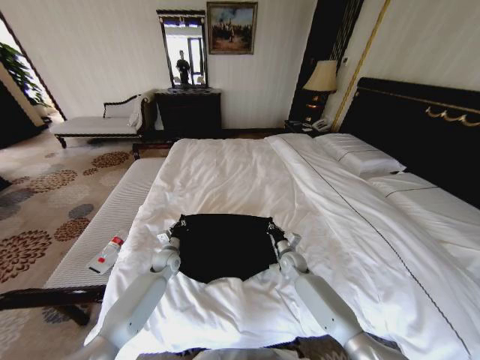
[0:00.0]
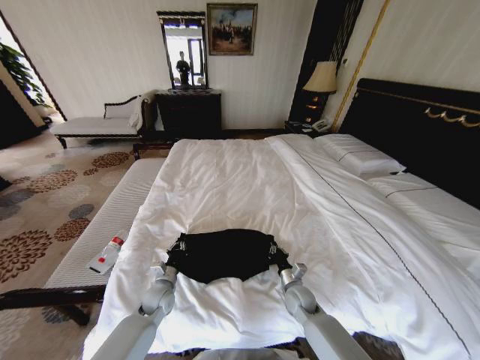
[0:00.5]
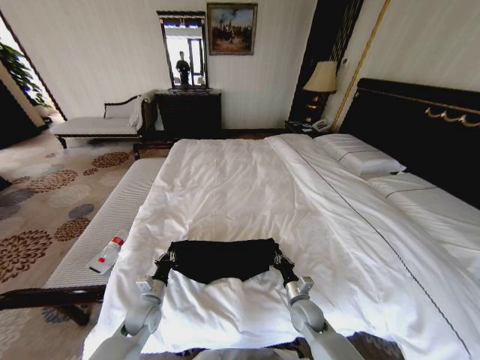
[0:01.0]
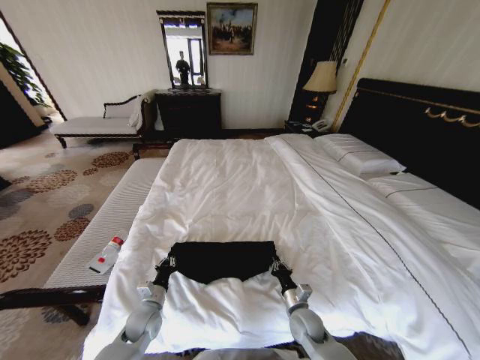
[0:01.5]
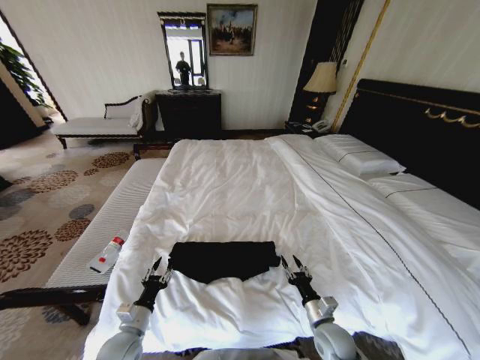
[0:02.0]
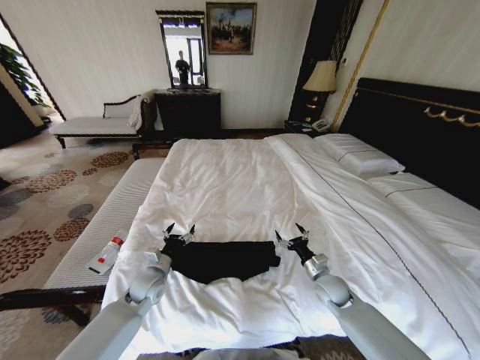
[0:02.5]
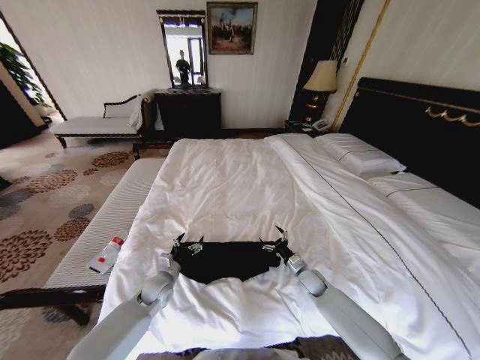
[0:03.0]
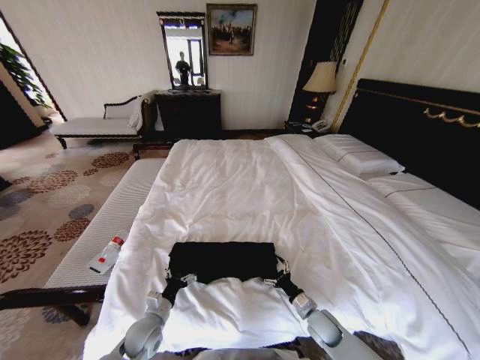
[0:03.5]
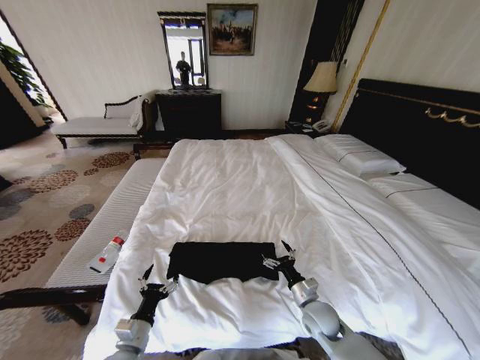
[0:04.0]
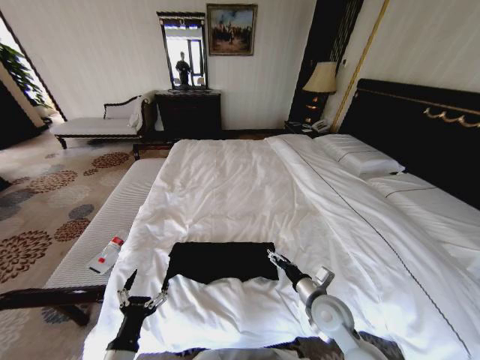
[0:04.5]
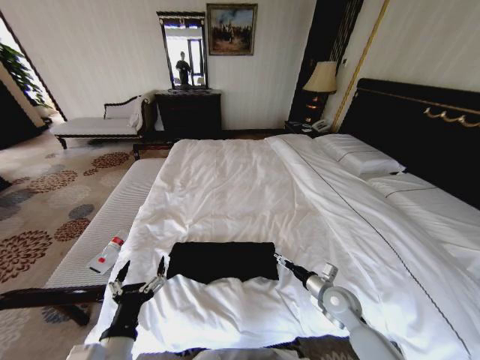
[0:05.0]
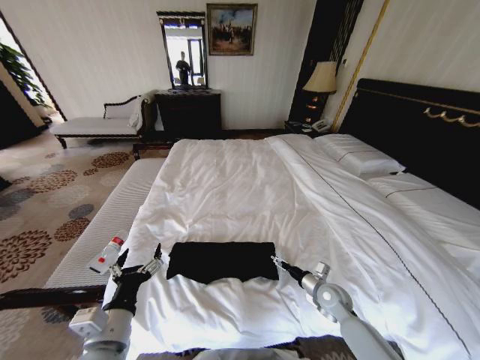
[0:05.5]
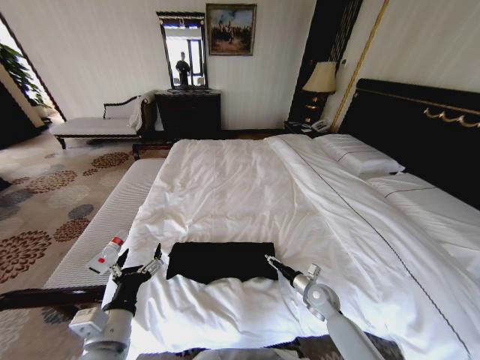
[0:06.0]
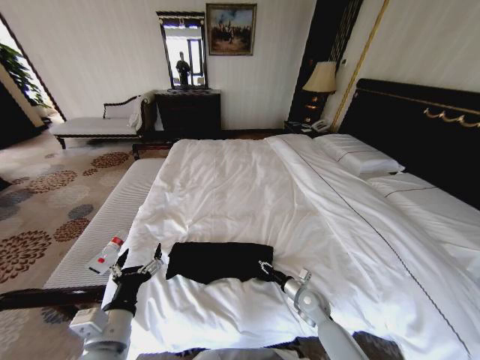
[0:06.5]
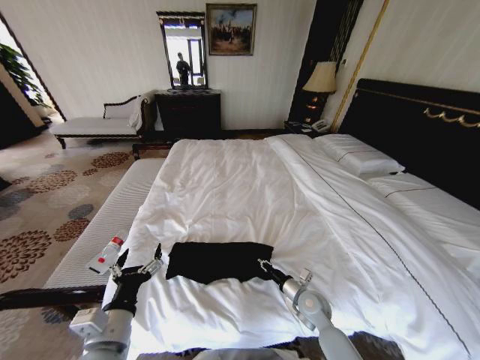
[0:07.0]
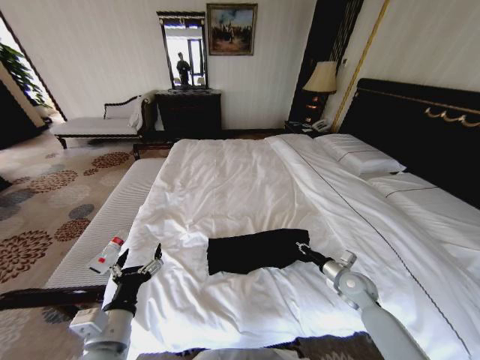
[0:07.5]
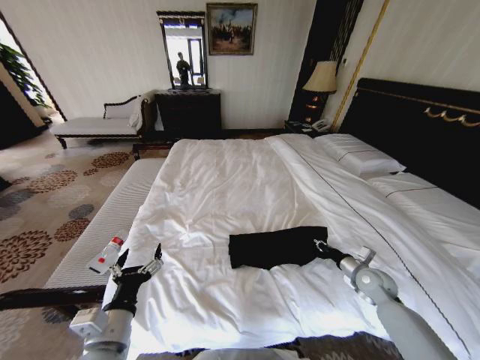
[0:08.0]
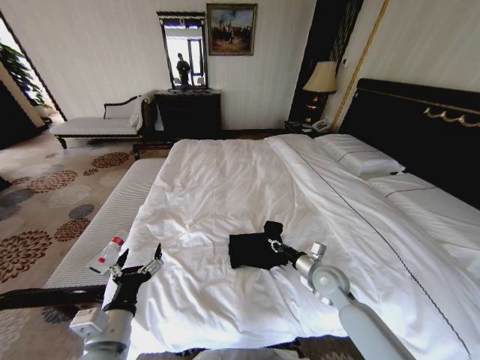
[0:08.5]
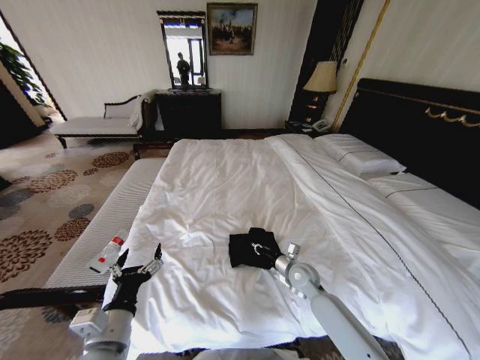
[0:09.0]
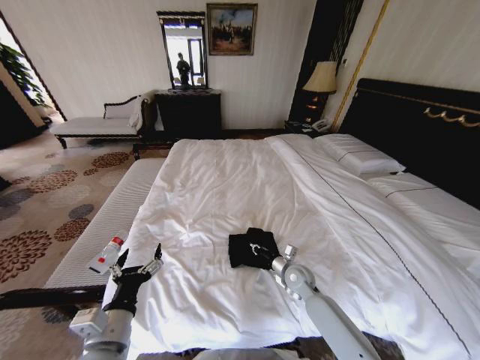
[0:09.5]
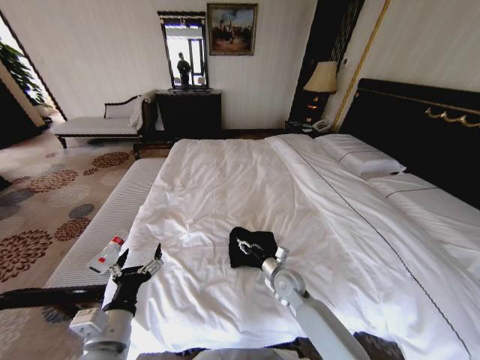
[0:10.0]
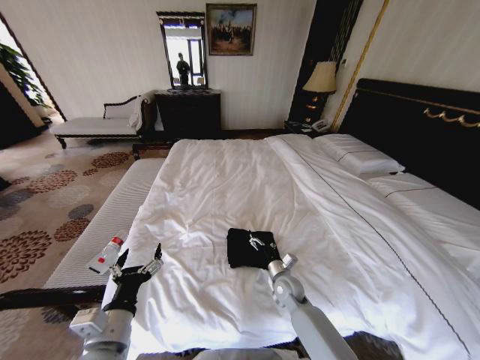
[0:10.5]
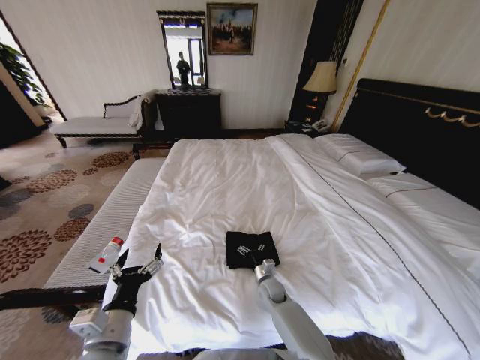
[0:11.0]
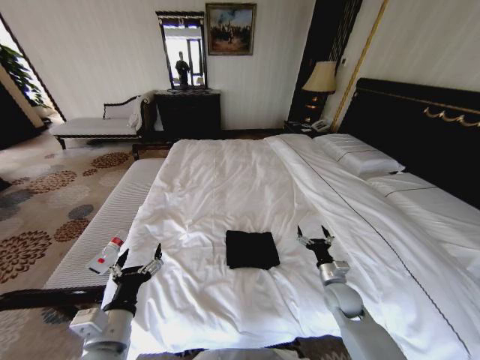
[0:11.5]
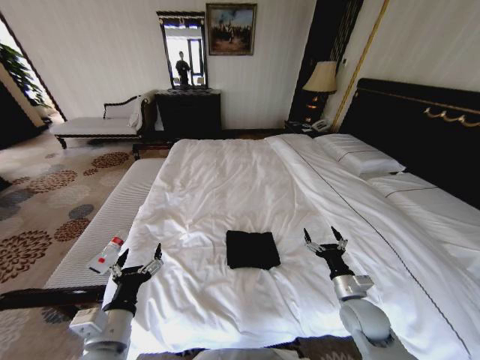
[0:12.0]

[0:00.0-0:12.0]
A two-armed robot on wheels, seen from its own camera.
Task of the whole recording: Fold the clothes on the bed.
0:00.0 to 0:02.0: The grippers both shift backward by about 25 cm. The left gripper opens, while the right gripper opens its fingers.
0:02.0 to 0:04.0: The left gripper travels forward and back again, approximately 15 cm each way, and opens its fingers; the right gripper moves approximately 20 cm forward and comes back, and opens its fingers.
0:04.0 to 0:06.0: The right gripper goes some 5 cm forward, and reaches about 10 cm upward, then returns. Meanwhile the left gripper travels upward by approximately 15 cm.
0:06.0 to 0:08.0: The right gripper shifts roughly 15 cm to the right and upward, and closes its fingers.
0:08.0 to 0:10.0: The right gripper is displaced to the left by about 25 cm, and opens up.
0:10.0 to 0:12.0: The right gripper shifts approximately 20 cm to the right and backward, and opens its fingers.

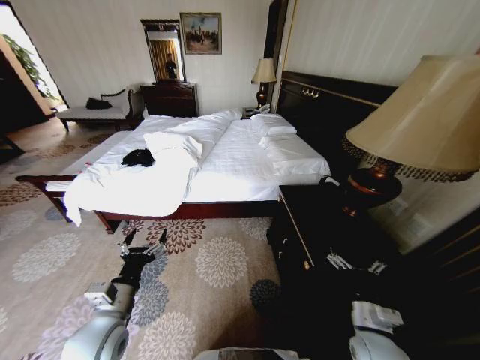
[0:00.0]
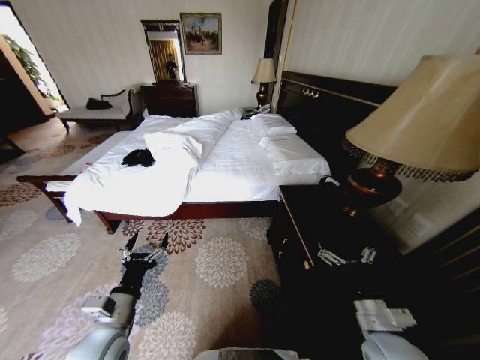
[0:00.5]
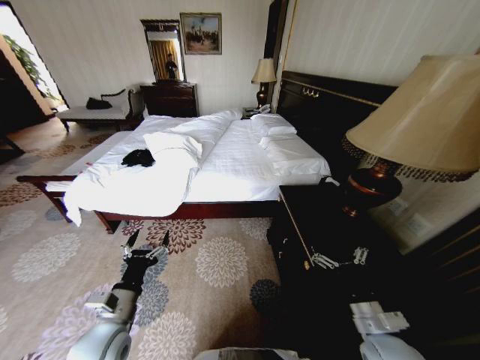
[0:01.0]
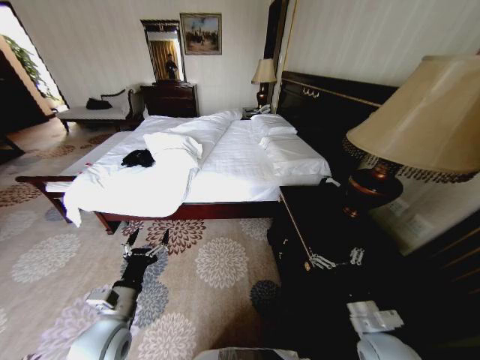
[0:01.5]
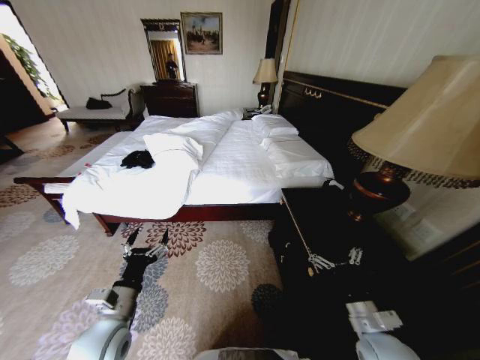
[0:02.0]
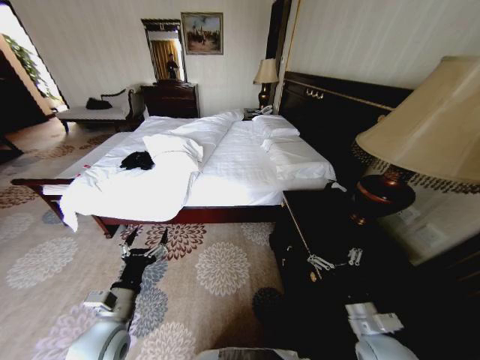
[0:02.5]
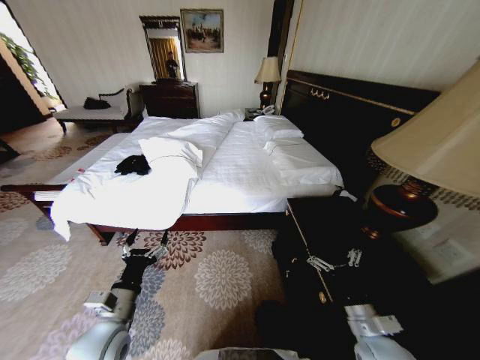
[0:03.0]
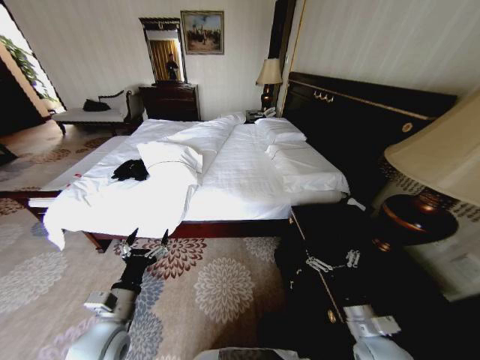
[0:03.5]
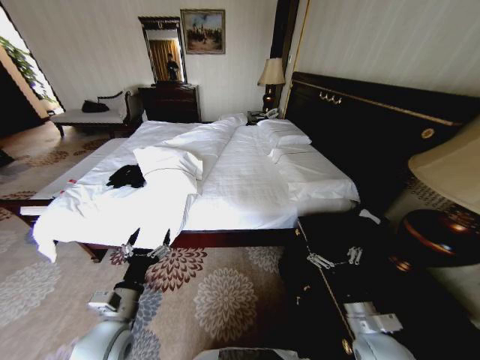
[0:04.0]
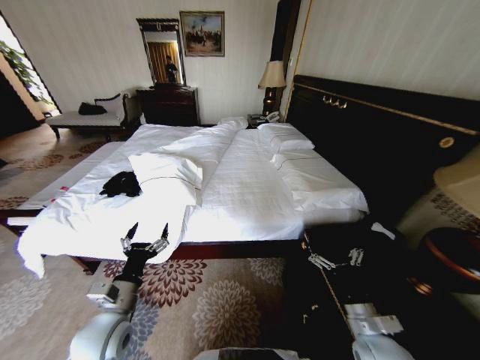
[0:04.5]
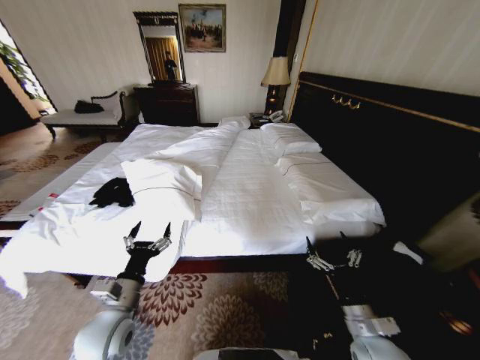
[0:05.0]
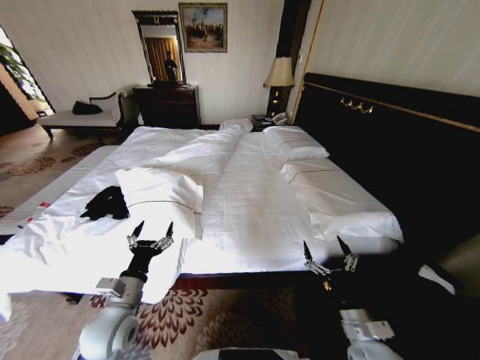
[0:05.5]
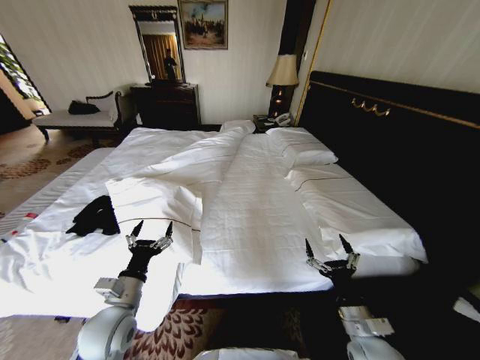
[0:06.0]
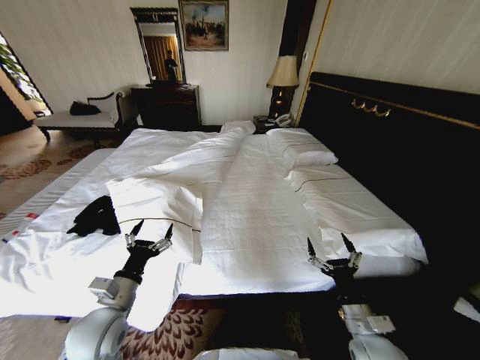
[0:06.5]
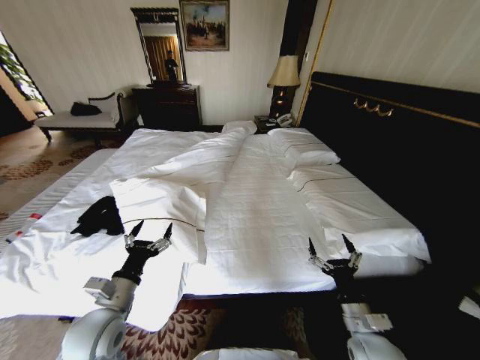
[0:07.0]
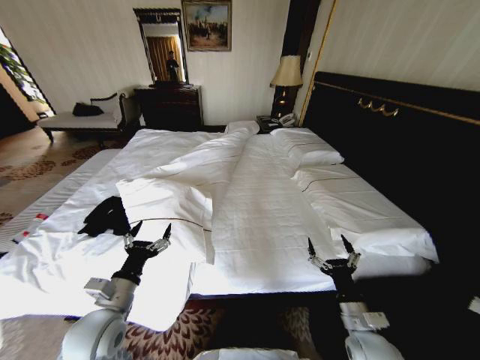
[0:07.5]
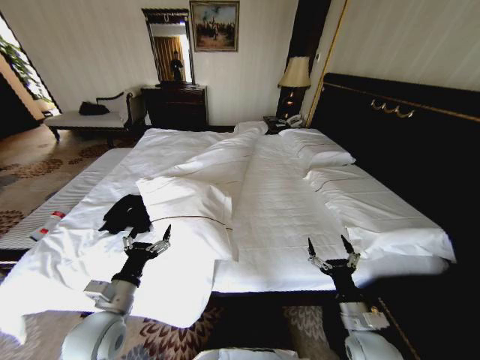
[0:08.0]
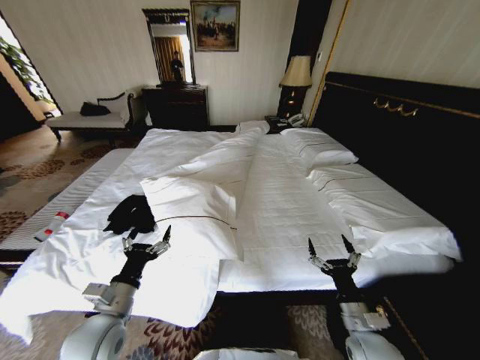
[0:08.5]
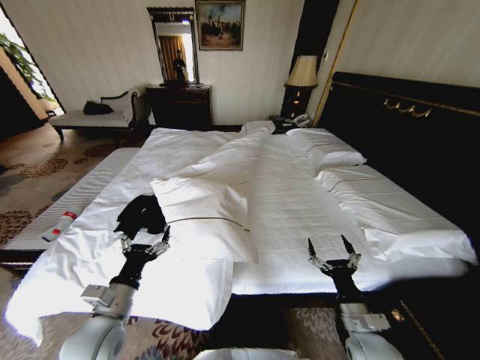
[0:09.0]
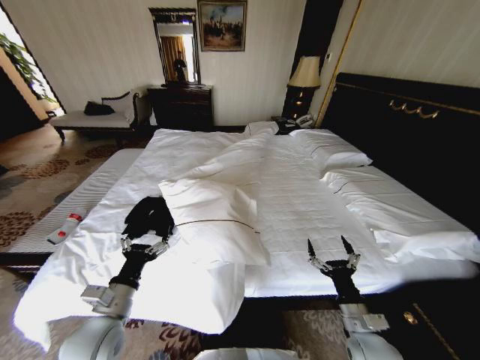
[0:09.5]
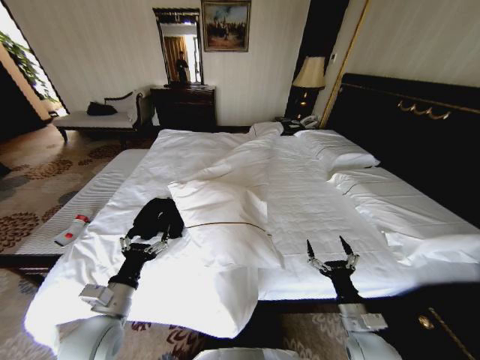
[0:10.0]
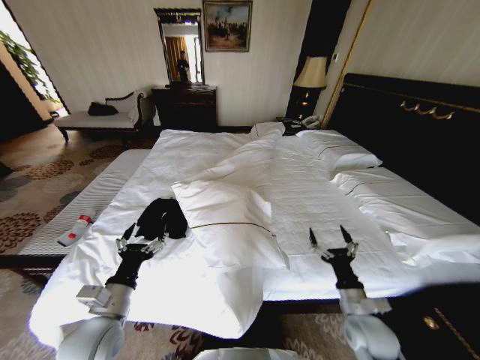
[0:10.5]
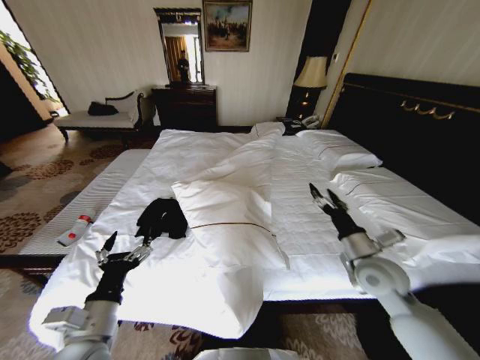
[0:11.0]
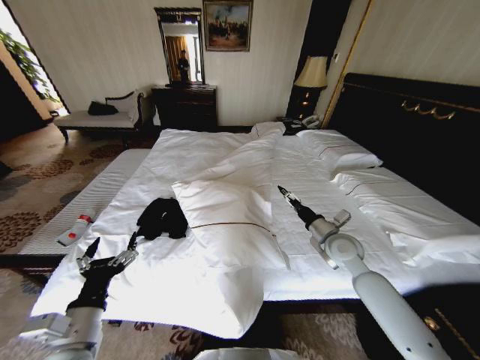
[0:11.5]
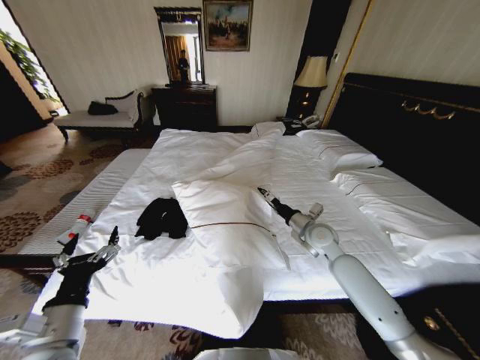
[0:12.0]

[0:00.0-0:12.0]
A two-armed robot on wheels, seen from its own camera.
Task of the whole recording: Fold the clothes on the bed.
0:10.0 to 0:12.0: The right gripper travels forward by roughly 25 cm, while the left gripper travels backward by about 5 cm.

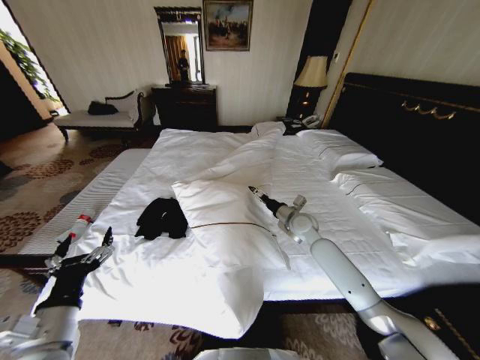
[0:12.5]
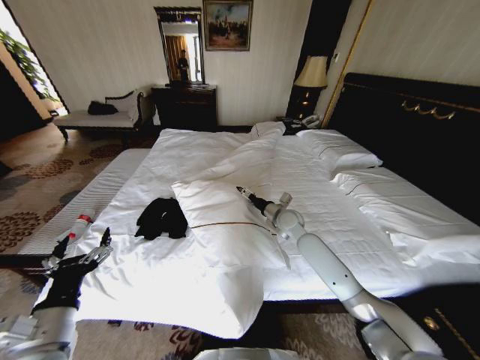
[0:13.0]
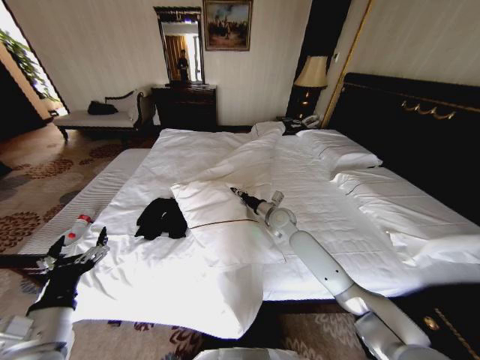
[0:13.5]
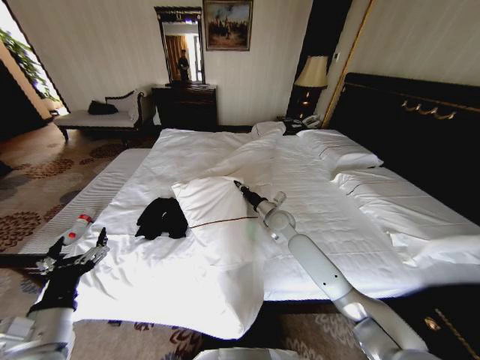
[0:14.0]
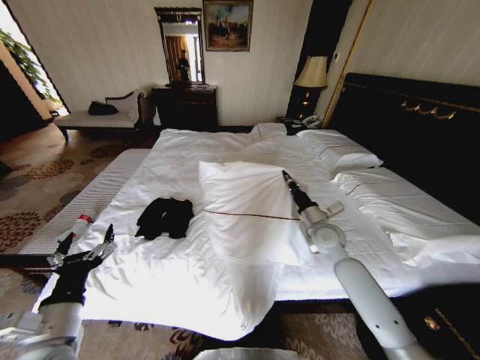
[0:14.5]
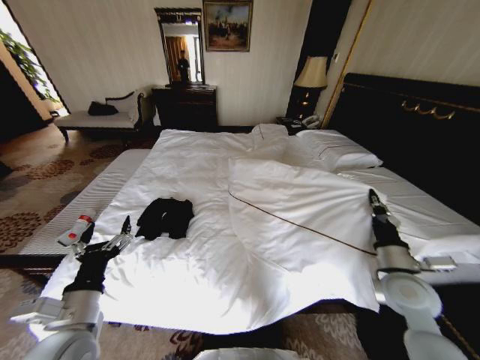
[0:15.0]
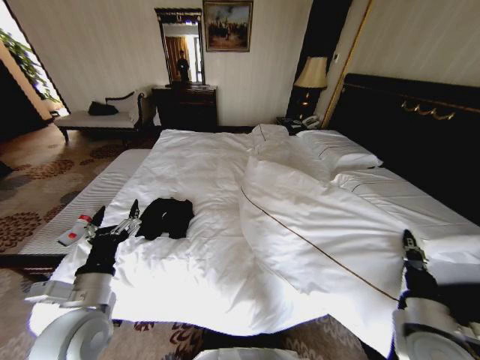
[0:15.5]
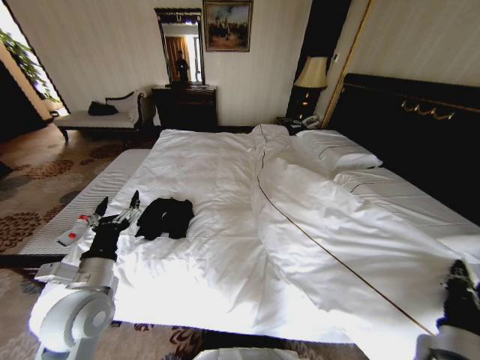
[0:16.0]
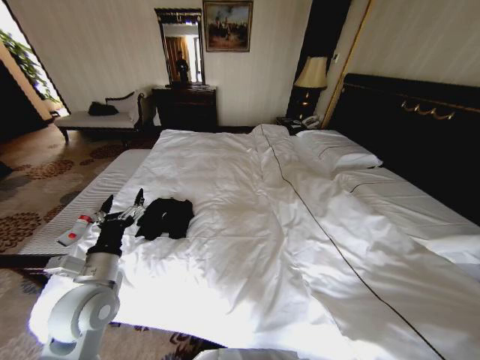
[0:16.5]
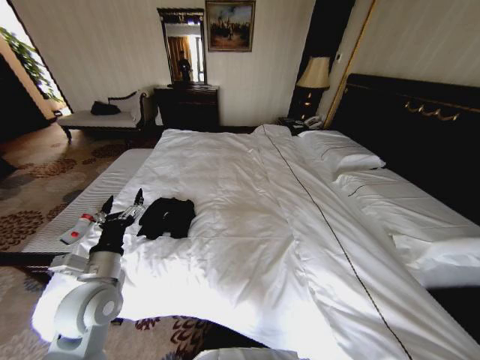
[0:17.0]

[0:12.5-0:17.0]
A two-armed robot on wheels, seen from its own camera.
Task of the whole recording: Fold the clothes on the bed.
0:12.5 to 0:14.5: The right gripper travels backward by roughly 5 cm, and closes.
0:14.5 to 0:17.0: The left gripper is displaced forward by about 10 cm. The right gripper travels backward by about 40 cm.
